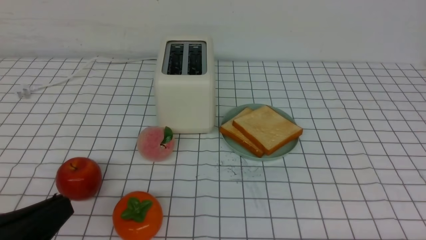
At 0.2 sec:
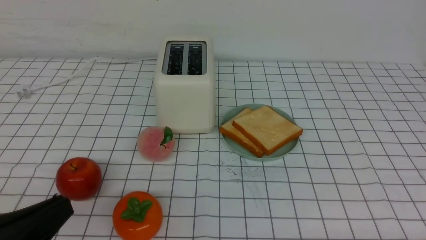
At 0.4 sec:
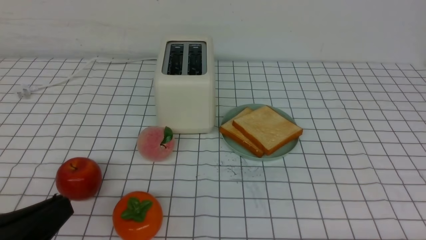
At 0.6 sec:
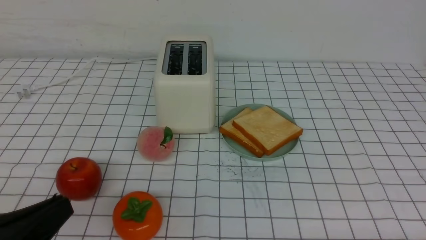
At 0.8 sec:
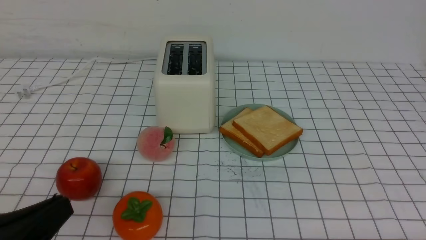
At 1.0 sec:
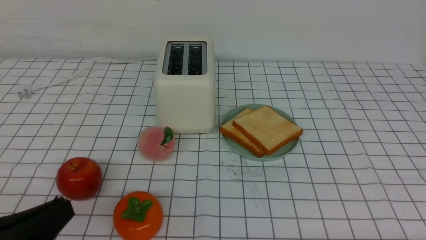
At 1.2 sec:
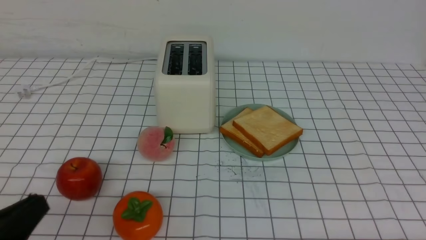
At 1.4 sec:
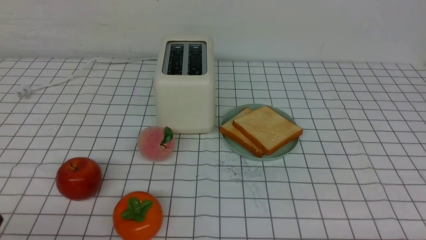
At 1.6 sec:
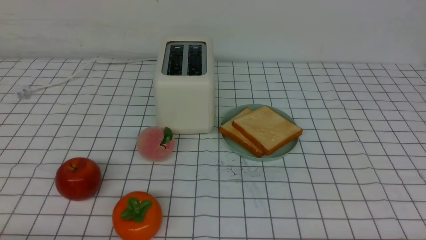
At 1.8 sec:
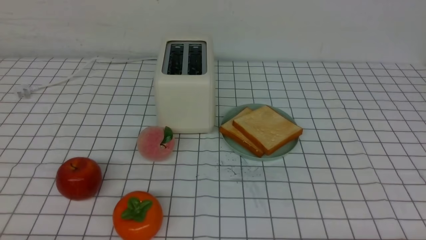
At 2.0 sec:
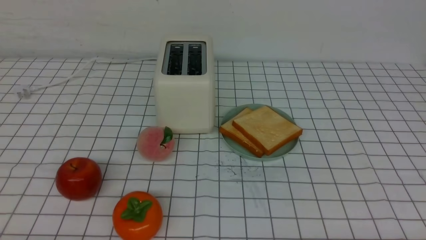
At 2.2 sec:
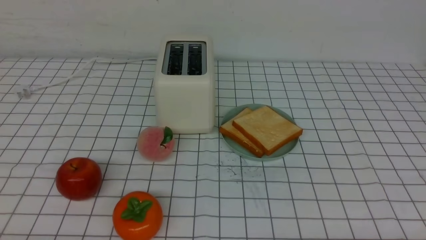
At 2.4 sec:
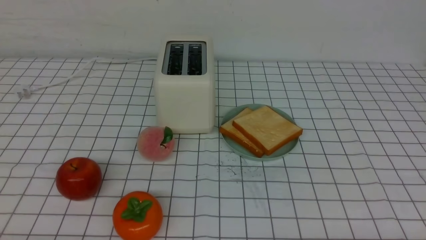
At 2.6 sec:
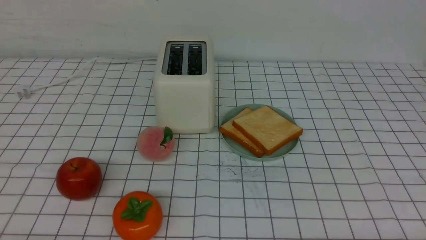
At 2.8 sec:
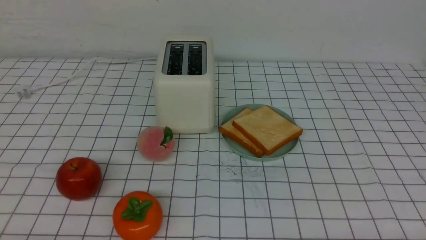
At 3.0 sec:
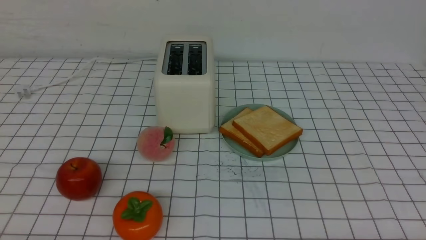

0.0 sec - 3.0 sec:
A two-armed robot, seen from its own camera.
Task of the whole recording: take toasted bread from bread machine on white checkered table place on plate.
0.0 sec - 1.6 sec: The left gripper shifts roughly 10 cm downward.
